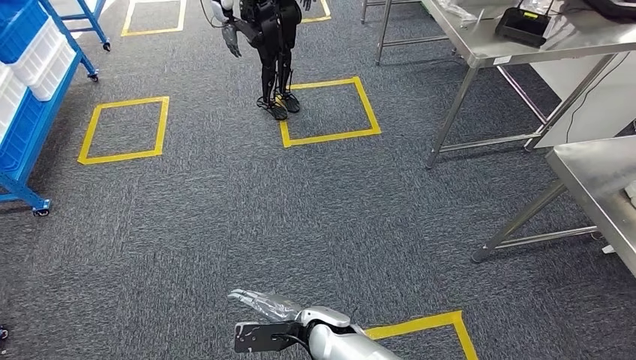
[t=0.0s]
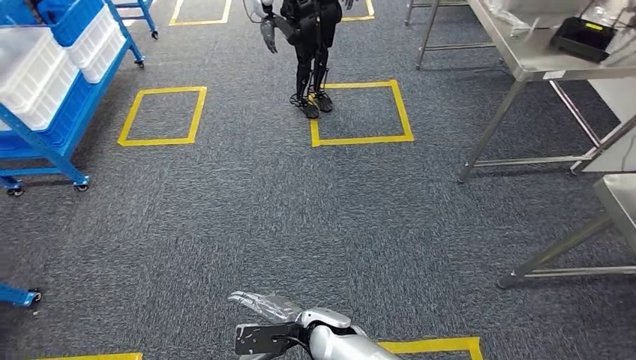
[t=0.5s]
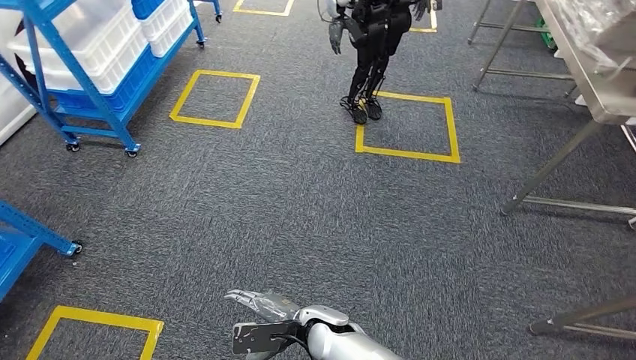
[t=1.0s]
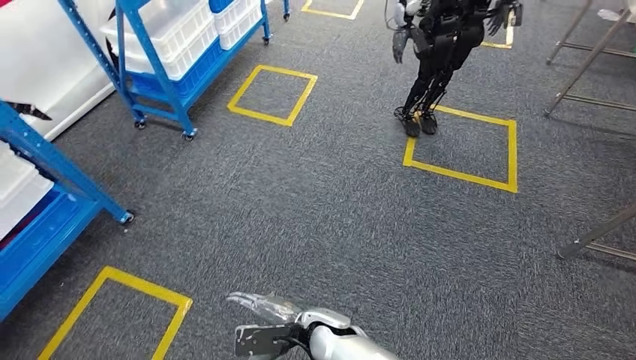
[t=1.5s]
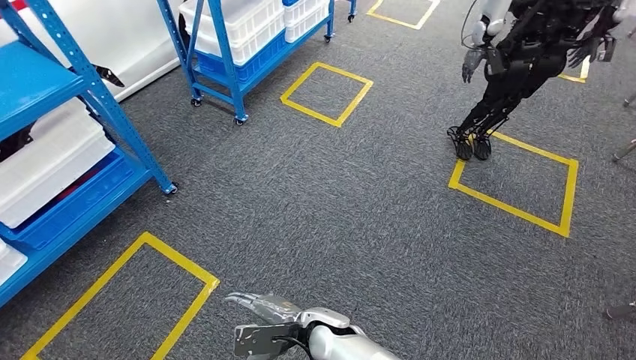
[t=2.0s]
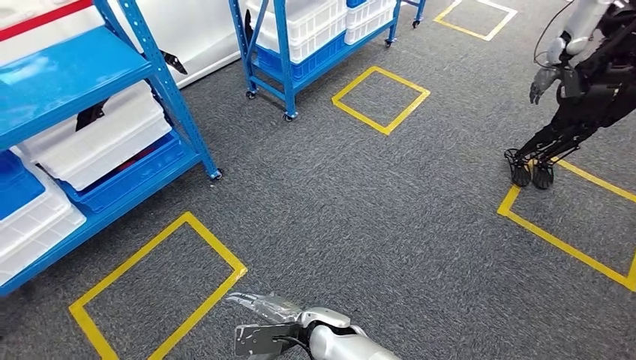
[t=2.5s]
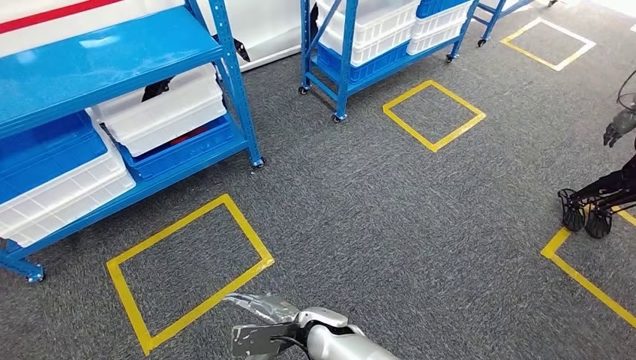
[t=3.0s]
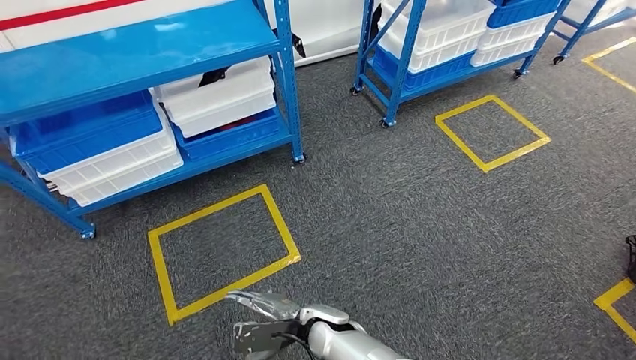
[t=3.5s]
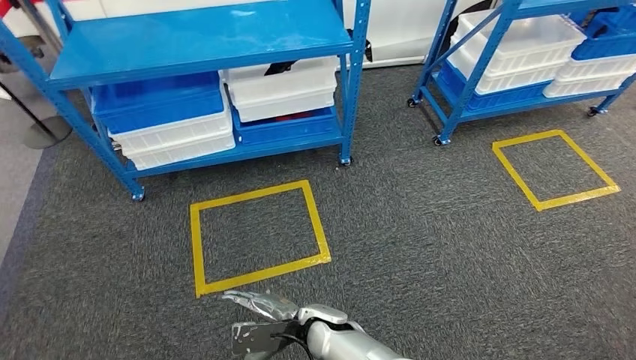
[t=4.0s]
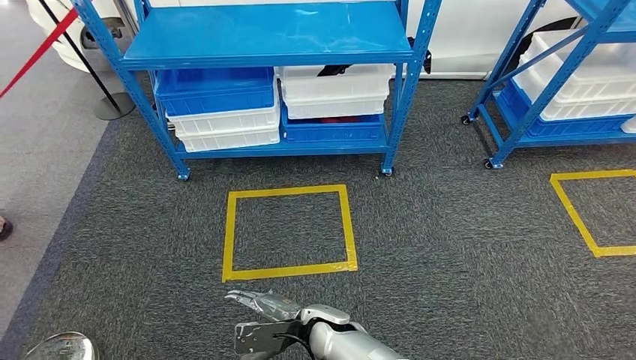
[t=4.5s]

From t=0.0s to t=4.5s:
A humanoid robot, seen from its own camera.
Step, from t=0.0s to t=4.5s: Move to the initial position of the shelf.
